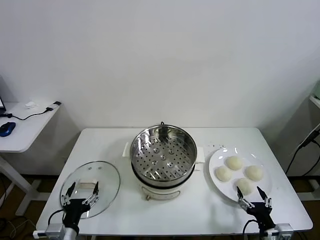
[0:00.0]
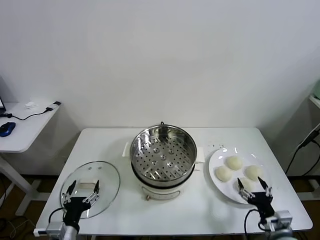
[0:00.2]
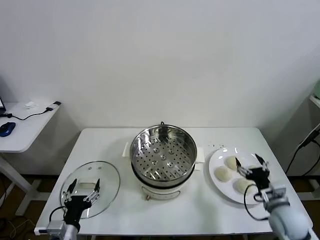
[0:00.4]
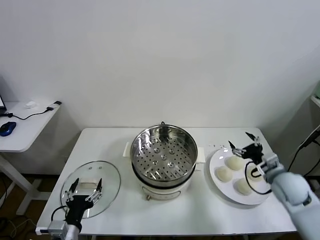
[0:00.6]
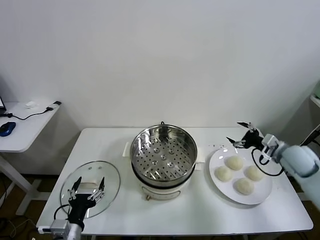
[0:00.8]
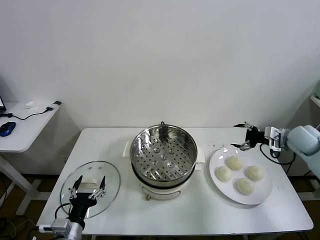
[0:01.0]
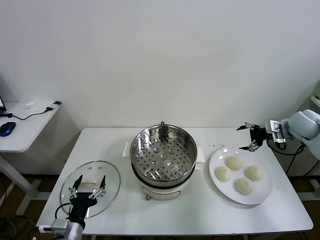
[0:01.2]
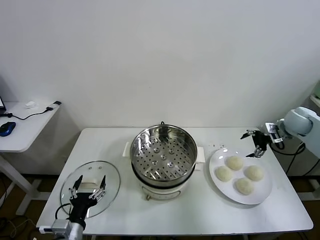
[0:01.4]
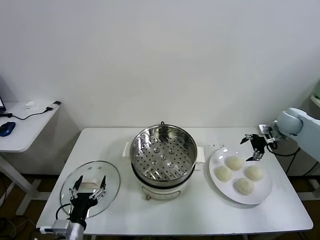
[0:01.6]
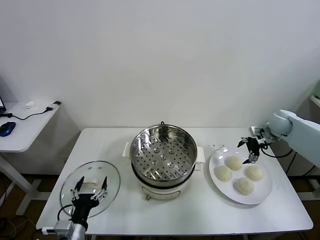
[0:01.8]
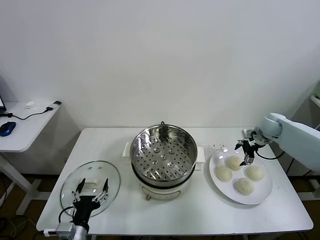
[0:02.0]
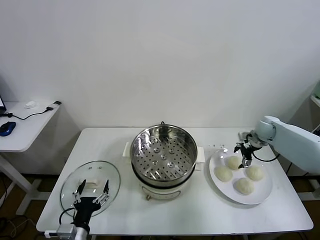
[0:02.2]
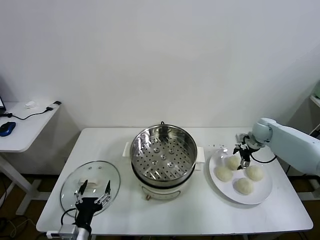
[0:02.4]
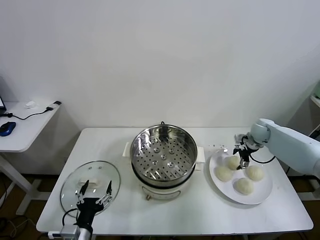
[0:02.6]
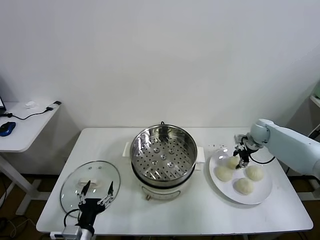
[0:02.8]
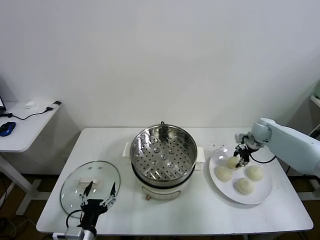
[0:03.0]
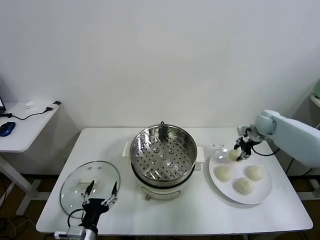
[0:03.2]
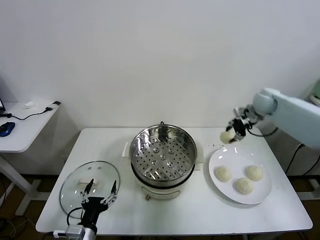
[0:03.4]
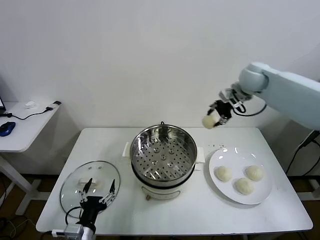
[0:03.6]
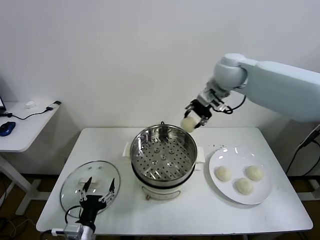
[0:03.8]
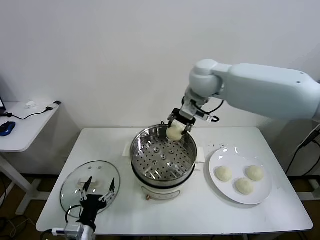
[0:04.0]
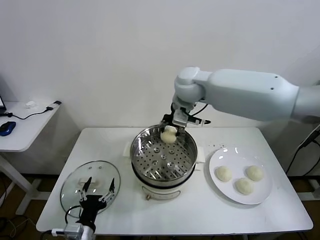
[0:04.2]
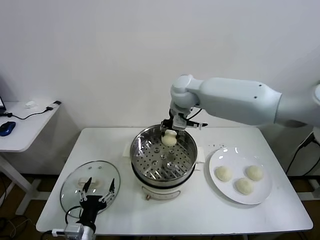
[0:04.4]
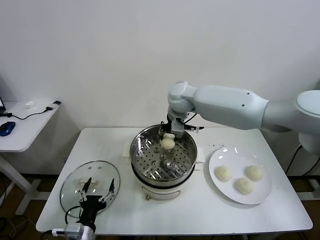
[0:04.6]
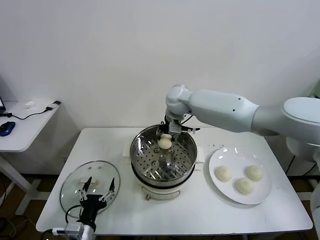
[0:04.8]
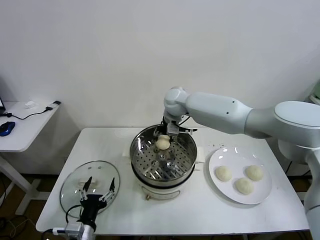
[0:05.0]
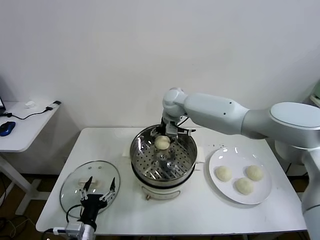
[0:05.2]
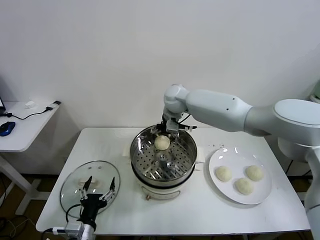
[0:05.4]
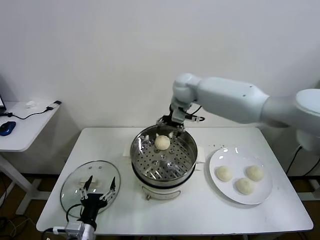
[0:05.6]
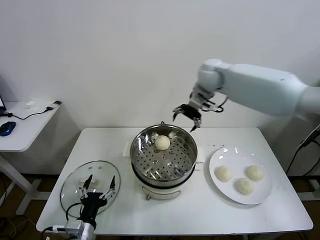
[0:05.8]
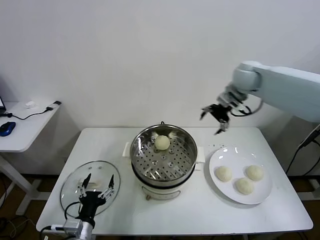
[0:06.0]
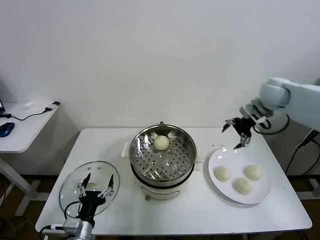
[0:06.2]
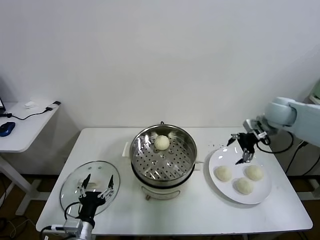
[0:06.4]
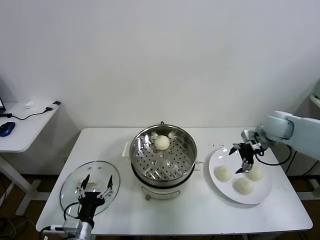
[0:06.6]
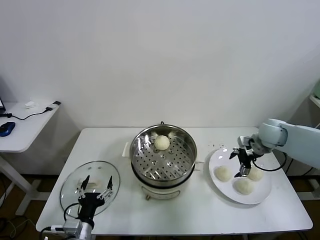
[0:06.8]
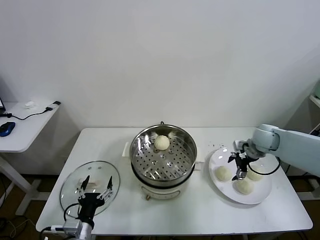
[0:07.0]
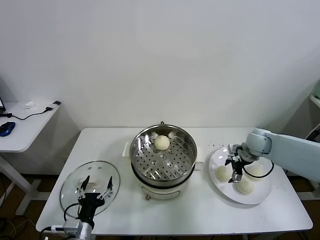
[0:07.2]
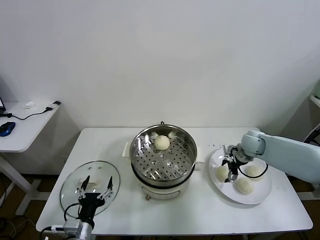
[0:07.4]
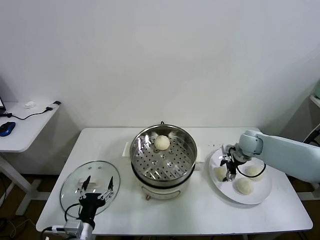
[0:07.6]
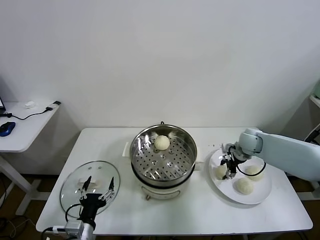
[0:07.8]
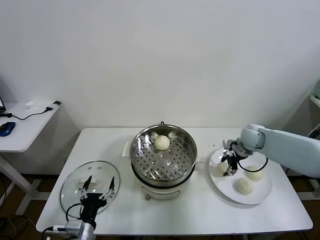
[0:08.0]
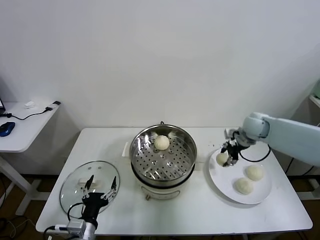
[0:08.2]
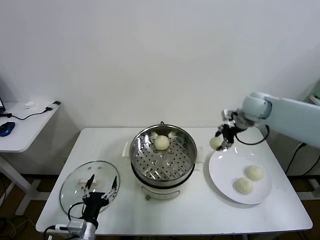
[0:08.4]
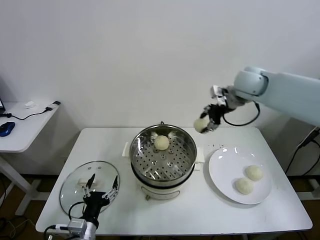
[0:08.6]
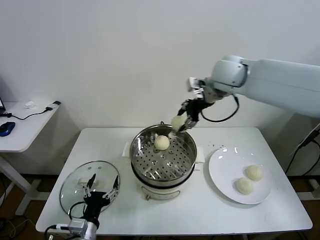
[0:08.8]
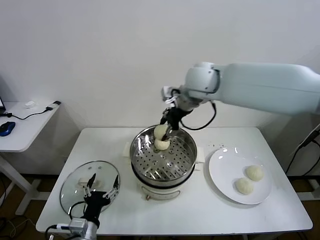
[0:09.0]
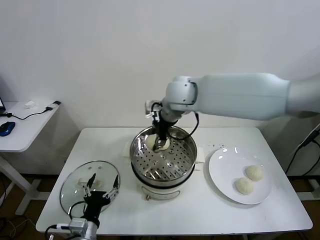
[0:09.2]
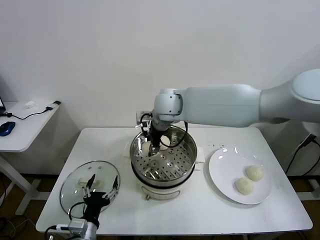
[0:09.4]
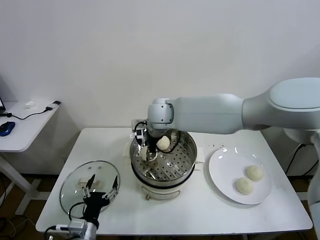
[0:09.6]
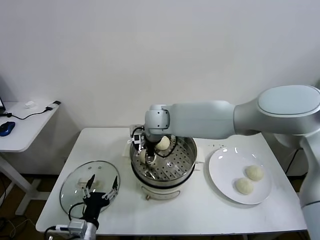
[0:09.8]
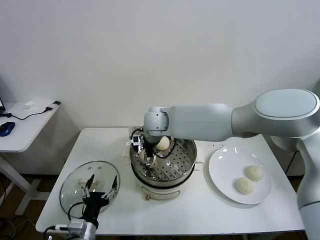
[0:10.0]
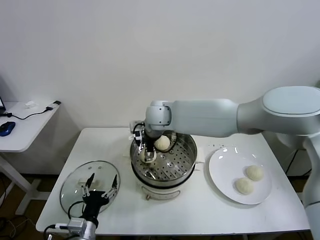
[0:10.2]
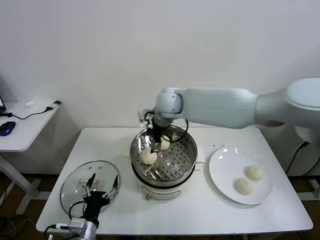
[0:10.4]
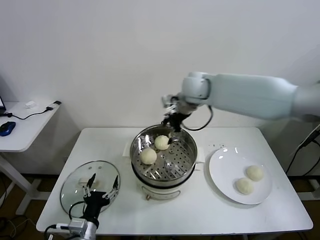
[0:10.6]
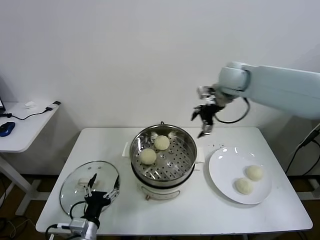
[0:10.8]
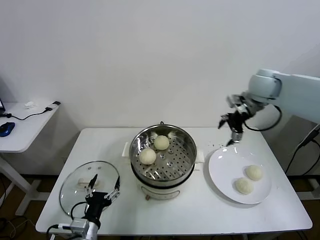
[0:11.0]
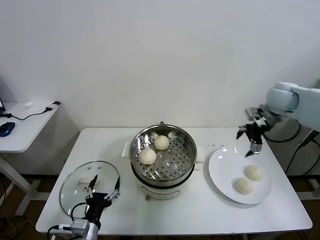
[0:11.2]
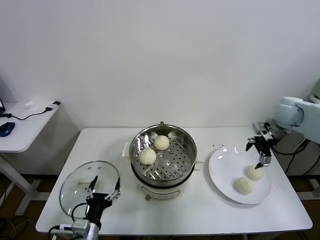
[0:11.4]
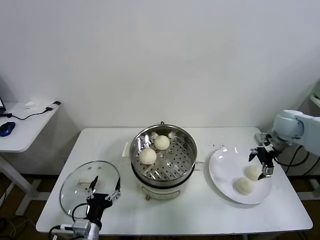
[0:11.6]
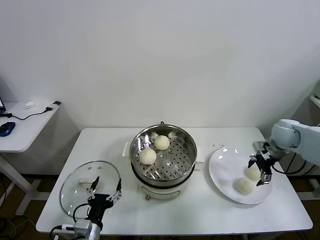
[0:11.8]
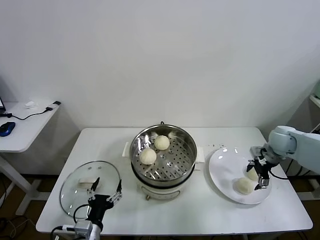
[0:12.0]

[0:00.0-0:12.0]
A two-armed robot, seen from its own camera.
Task of the whole recording: take steamed baozi put them in steamer.
Step, 0.0 to 2.8 s: Grasp the baozi in the plate with right gripper.
Step, 3.0 to 5.2 s: Place the baozi on the steamer with right gripper.
Step, 5.4 to 7.8 s: Grasp the baozi in the plate with right gripper.
Step, 8.0 to 10.2 s: Place the baozi on the steamer with right gripper.
1.6 to 3.0 s: The right gripper ends up roughly 5 cm from where it was, and closes its fingers.
3.0 to 4.4 s: The right gripper travels to the left and upward by approximately 40 cm.
4.4 to 6.0 s: The right gripper heads to the right, covering some 25 cm, and opens up.
6.0 to 7.6 s: The right gripper is displaced downward by roughly 25 cm, and closes its fingers.
7.6 to 9.0 s: The right gripper heads upward and to the left, covering some 35 cm, and closes.
9.0 to 10.4 s: The right gripper moves downward, some 5 cm, and opens up.
10.4 to 12.0 s: The right gripper goes roughly 40 cm to the right and downward.

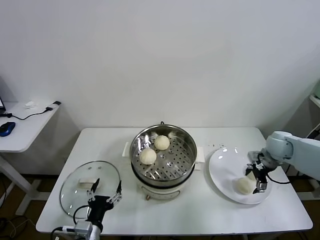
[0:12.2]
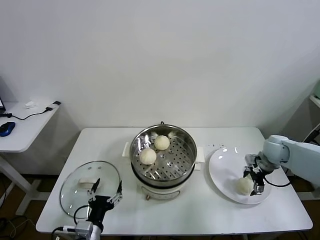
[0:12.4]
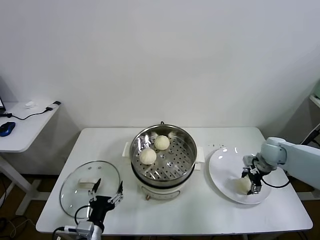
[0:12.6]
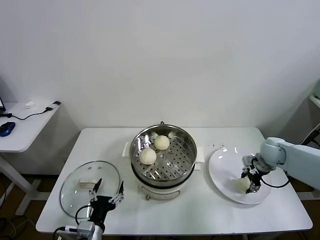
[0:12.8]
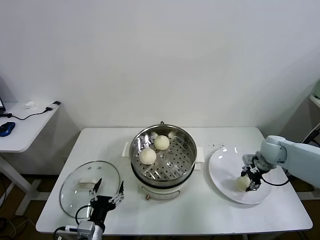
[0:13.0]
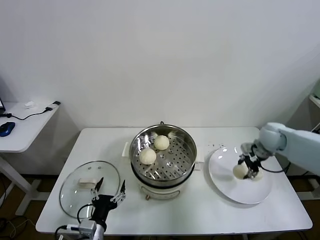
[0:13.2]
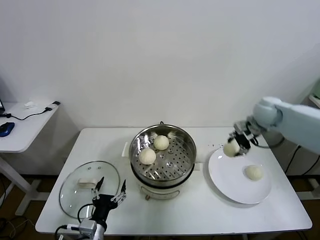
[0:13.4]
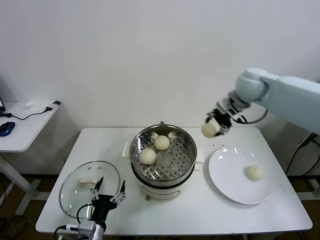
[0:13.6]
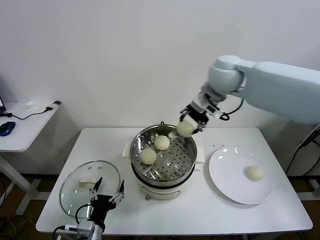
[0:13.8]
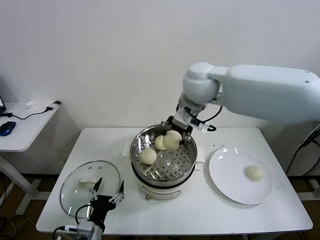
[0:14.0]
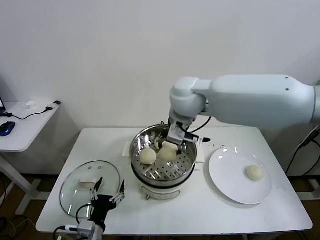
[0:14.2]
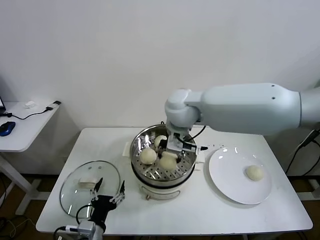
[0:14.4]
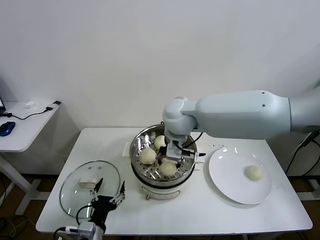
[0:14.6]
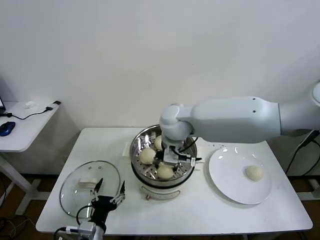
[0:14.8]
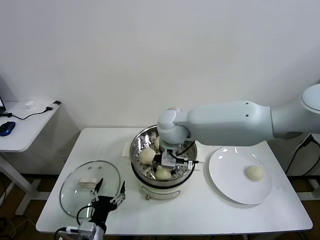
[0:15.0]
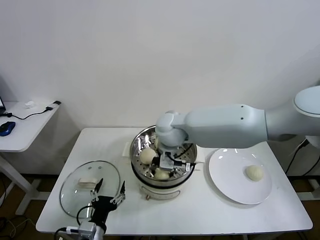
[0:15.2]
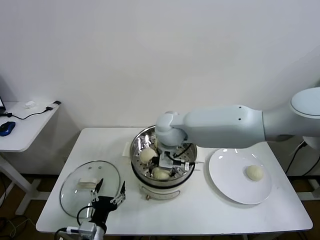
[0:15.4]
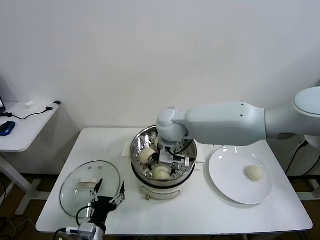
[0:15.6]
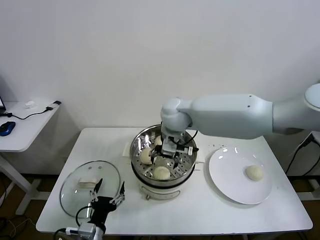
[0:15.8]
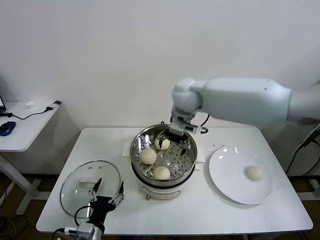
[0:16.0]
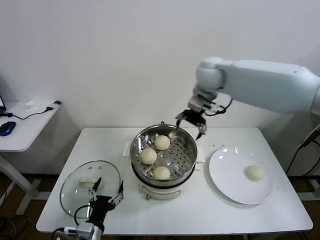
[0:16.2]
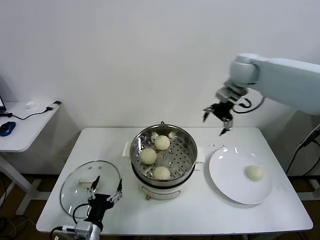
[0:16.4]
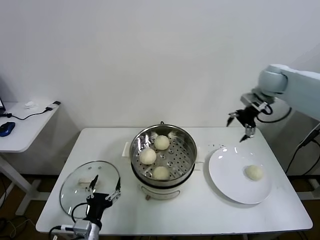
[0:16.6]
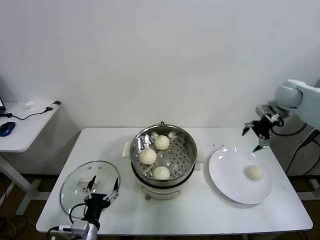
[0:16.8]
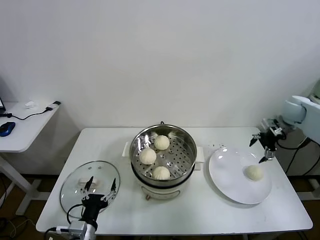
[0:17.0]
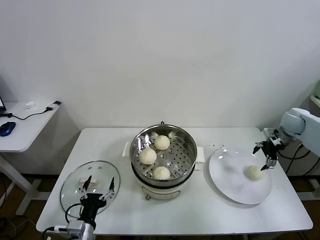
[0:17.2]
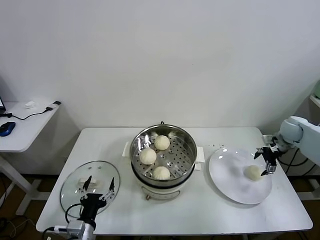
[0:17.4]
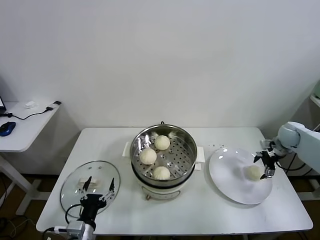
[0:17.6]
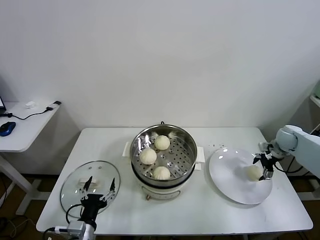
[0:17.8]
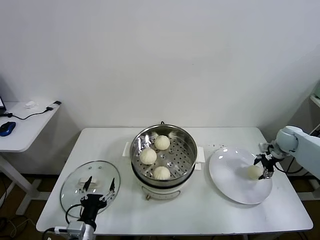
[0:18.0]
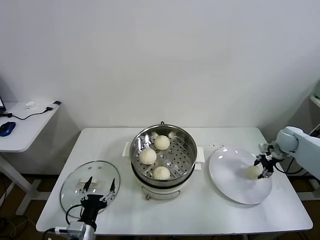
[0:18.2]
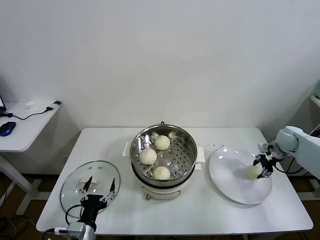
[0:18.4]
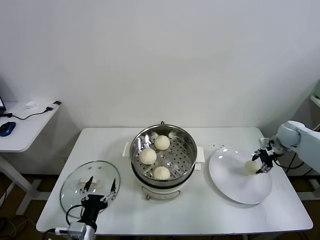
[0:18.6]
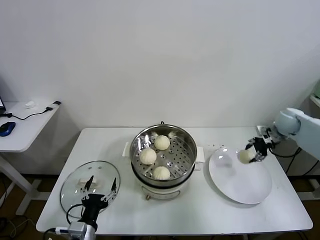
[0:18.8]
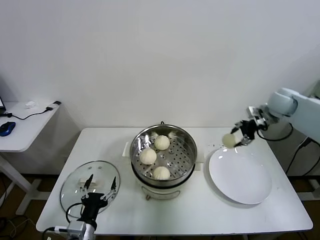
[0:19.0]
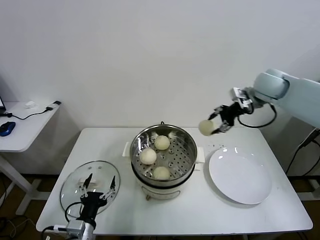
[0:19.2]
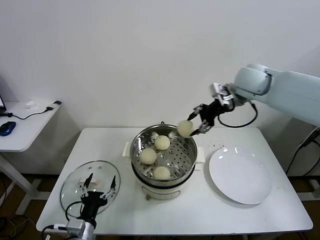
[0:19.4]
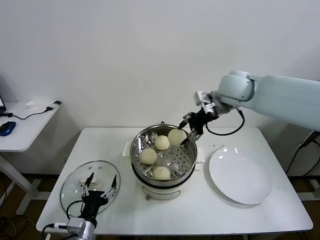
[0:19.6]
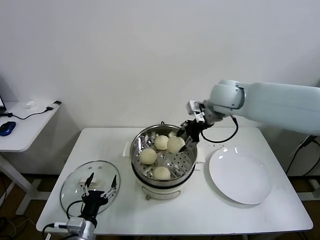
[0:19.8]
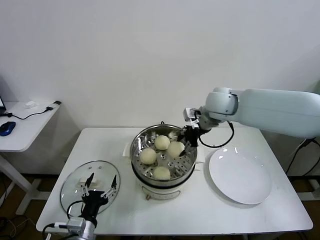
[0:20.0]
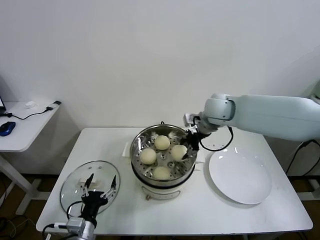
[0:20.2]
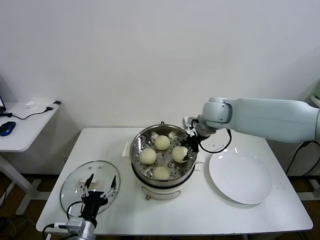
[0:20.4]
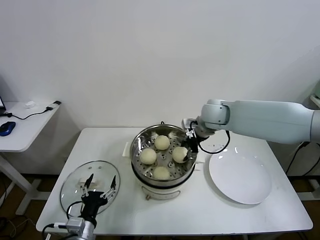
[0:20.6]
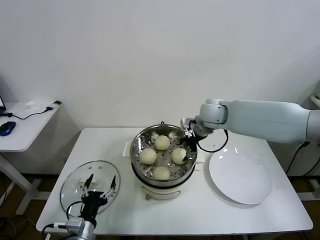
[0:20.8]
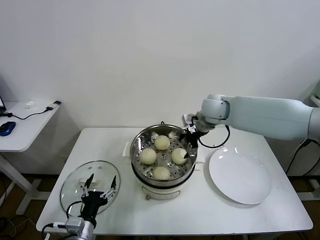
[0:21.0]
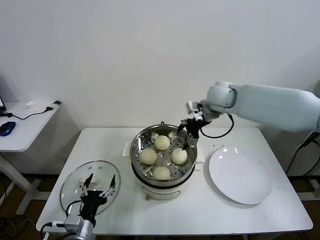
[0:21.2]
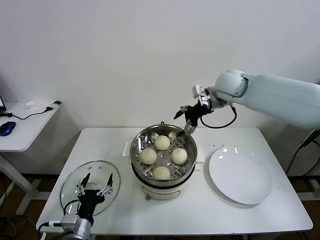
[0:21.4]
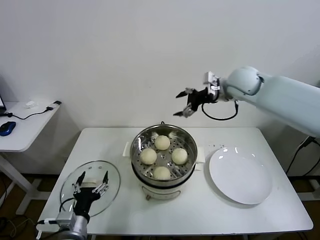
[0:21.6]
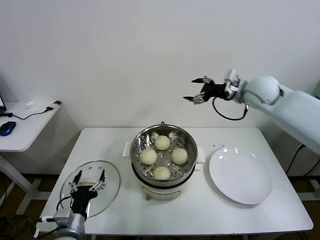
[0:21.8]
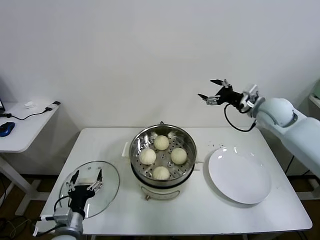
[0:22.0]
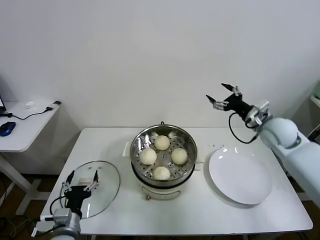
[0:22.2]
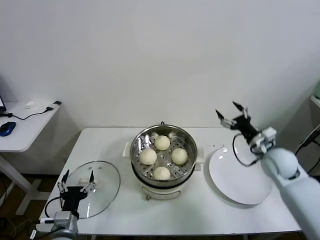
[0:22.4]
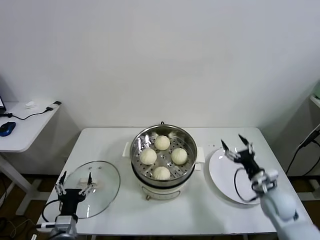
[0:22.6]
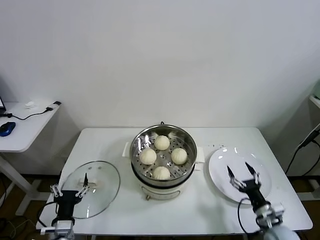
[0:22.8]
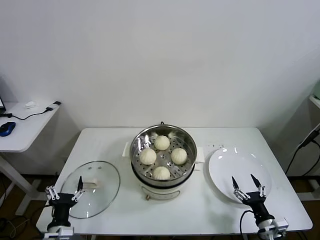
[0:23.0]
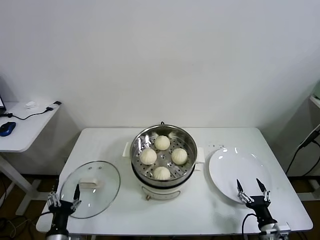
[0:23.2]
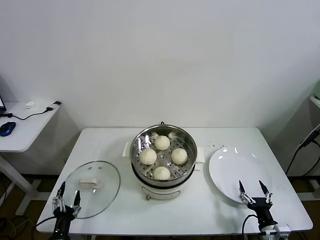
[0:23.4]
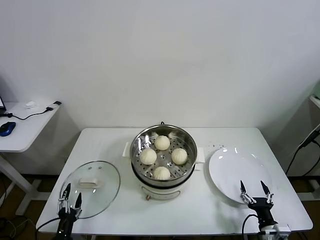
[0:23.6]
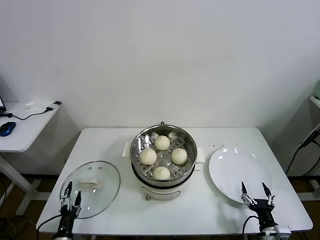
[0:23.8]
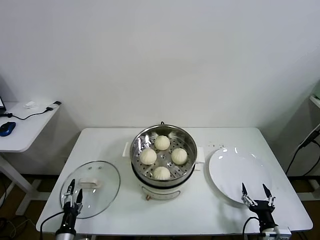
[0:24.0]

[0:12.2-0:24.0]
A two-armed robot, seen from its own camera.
Task of the whole recording: take steamed baozi put them in steamer.
Step, 13.0 to 15.4 s: Place the baozi on the steamer with right gripper.
Step, 15.6 to 18.0 s: Grasp the baozi in the plate with right gripper.
Step, 18.2 to 20.8 s: Place the baozi on the steamer with right gripper.
12.2 to 13.6 s: The right gripper shifts approximately 30 cm upward and to the left, and closes up.
13.6 to 15.2 s: The right gripper shifts some 25 cm to the left and downward.
15.2 to 16.6 s: The right gripper shifts approximately 35 cm to the right, and opens.
16.6 to 18.2 s: The right gripper is displaced downward and to the right by some 25 cm, and closes.
18.2 to 19.6 s: The right gripper goes some 35 cm to the left and upward.
19.6 to 21.0 s: The right gripper goes approximately 10 cm downward, and opens.
21.0 to 22.6 s: The left gripper ends up about 5 cm from where it was; the right gripper is displaced downward, backward and to the right by some 40 cm.
22.6 to 24.0 s: The left gripper goes some 10 cm downward; the right gripper goes about 20 cm backward and downward.
